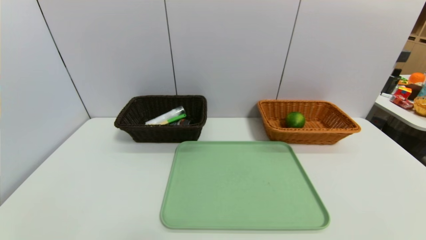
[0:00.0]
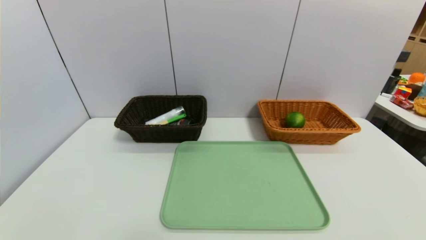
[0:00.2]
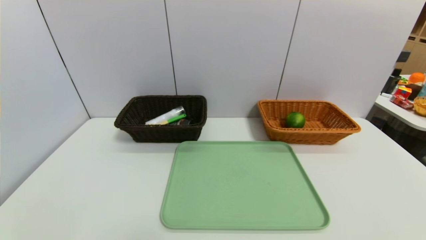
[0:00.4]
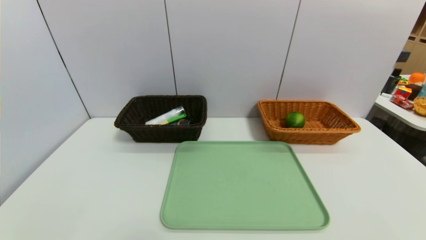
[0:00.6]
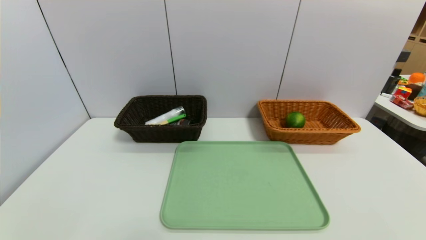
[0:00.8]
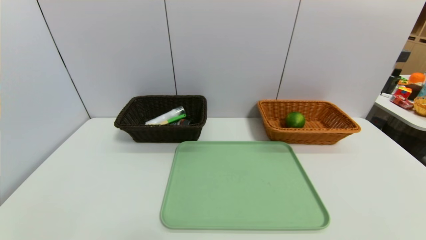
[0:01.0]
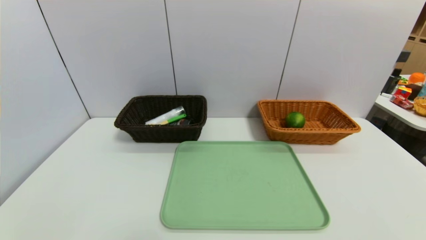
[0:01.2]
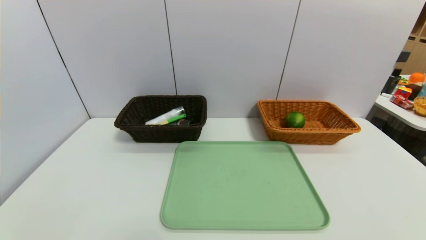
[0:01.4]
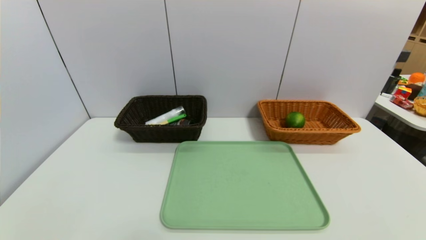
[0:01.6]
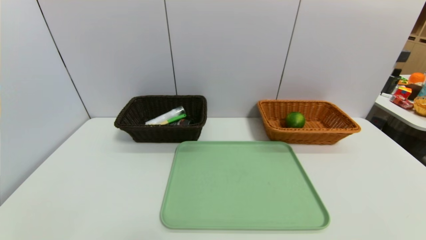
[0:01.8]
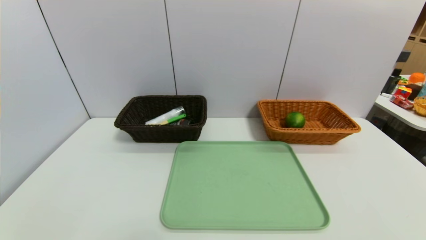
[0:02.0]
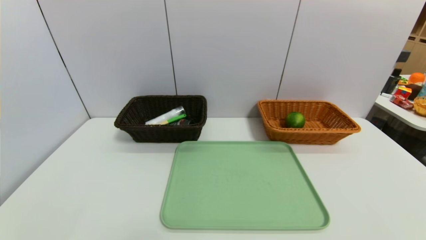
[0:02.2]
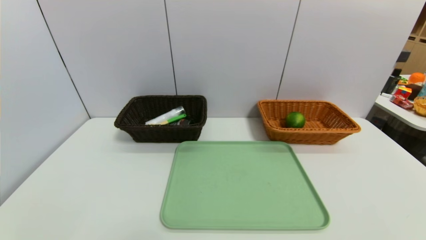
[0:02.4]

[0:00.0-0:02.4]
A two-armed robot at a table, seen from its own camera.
Task of the whole recording: place the food in the right basket with the right gripper, and place the non food items in the left basket with the left gripper.
0:01.2 to 0:02.4: Both grippers stay put.
